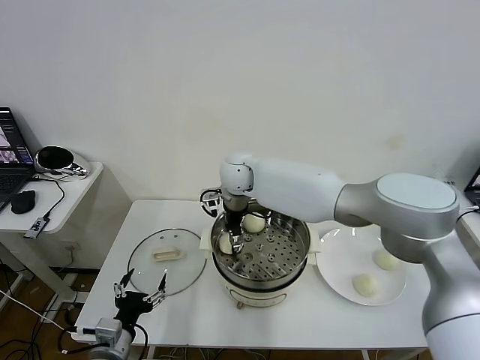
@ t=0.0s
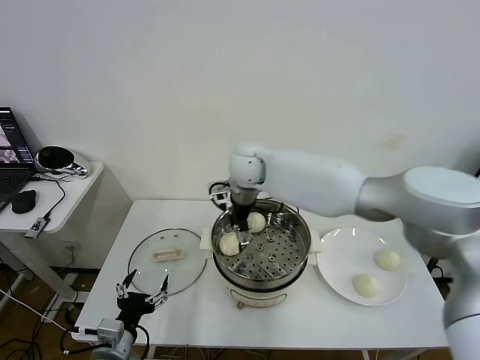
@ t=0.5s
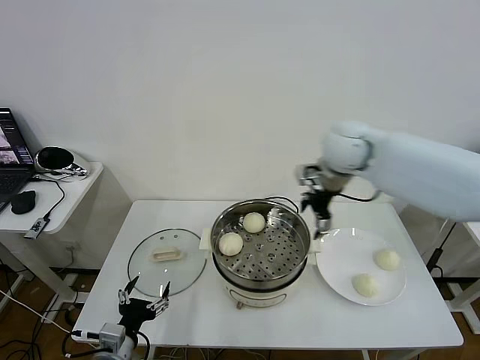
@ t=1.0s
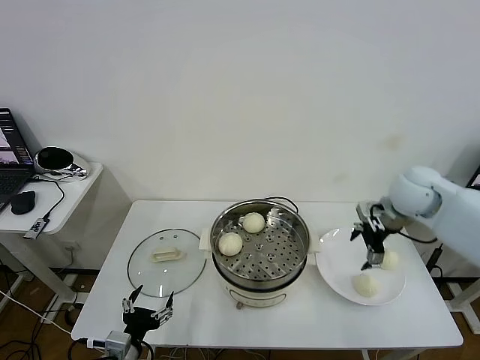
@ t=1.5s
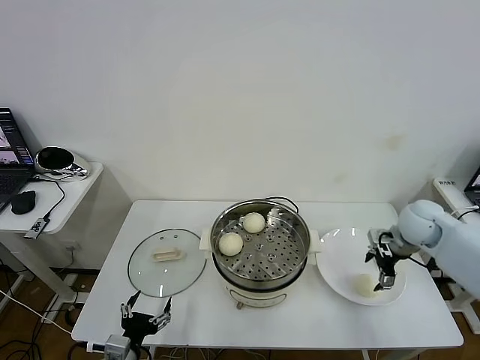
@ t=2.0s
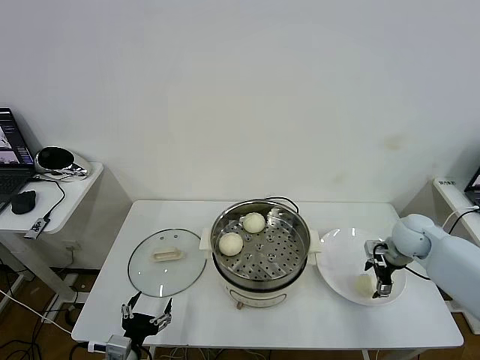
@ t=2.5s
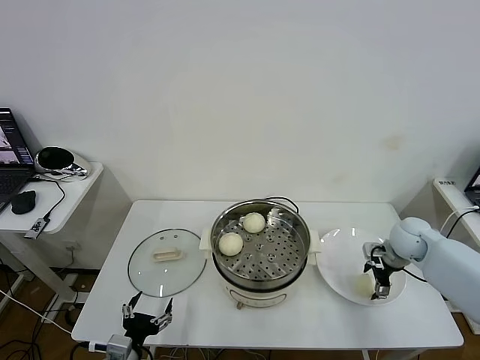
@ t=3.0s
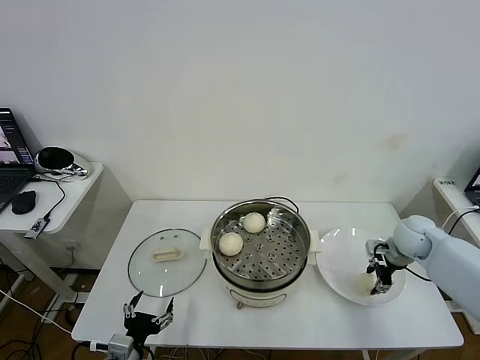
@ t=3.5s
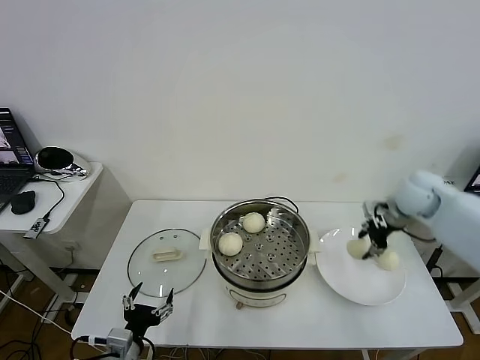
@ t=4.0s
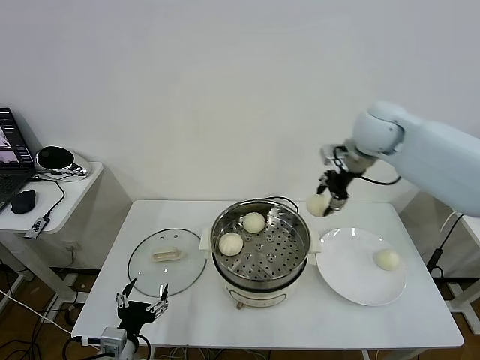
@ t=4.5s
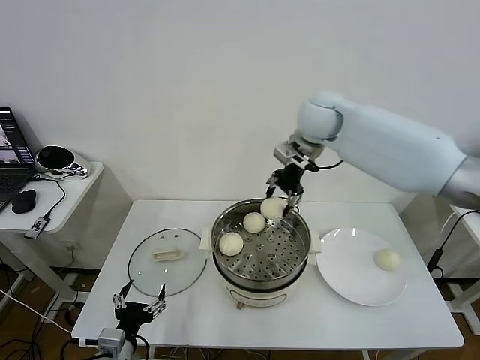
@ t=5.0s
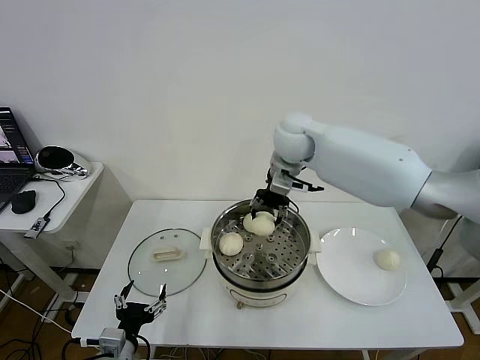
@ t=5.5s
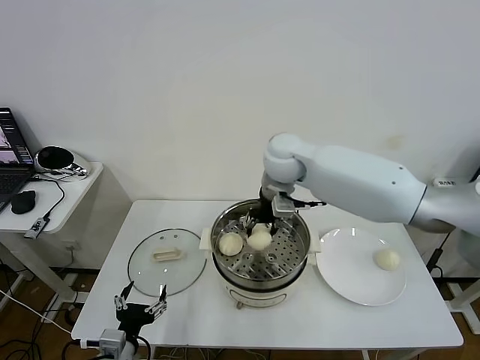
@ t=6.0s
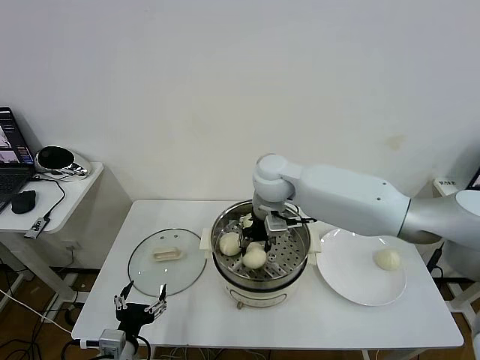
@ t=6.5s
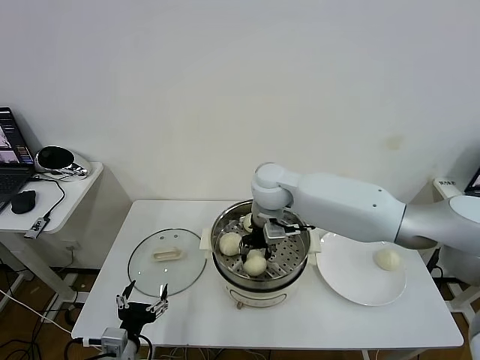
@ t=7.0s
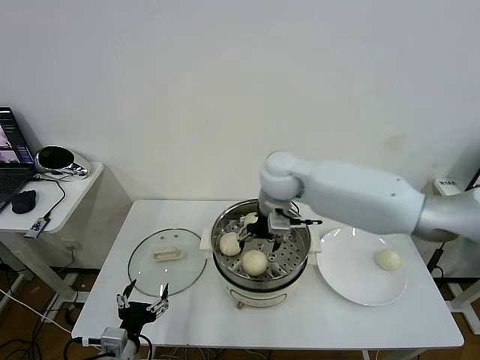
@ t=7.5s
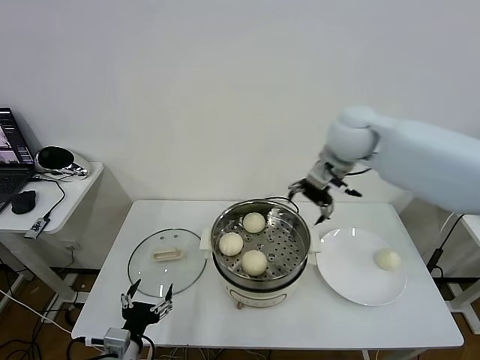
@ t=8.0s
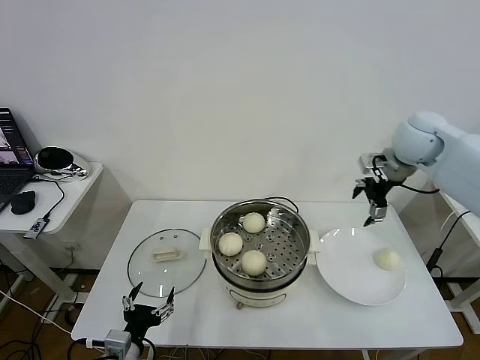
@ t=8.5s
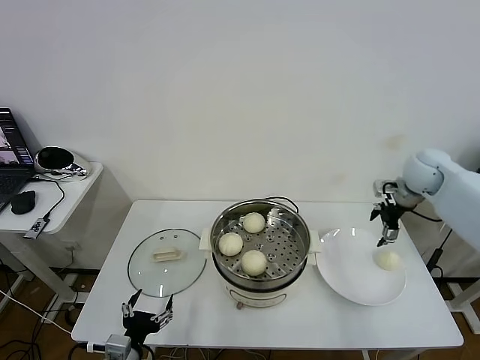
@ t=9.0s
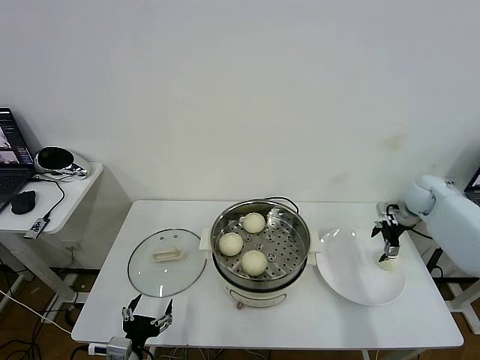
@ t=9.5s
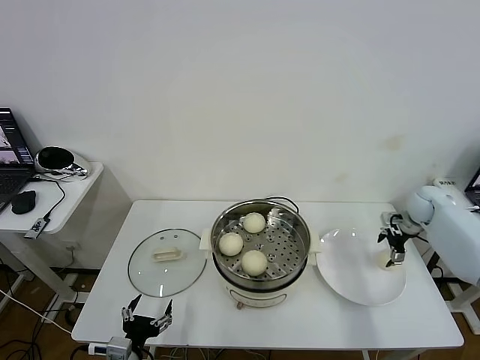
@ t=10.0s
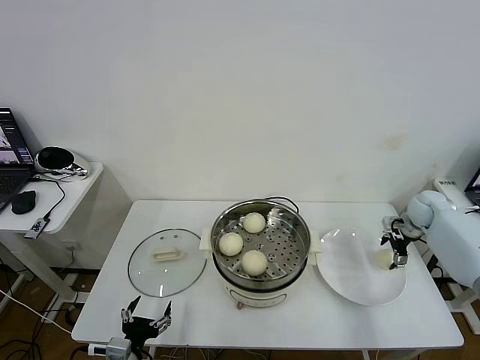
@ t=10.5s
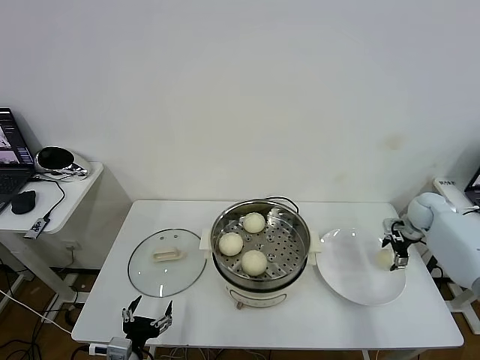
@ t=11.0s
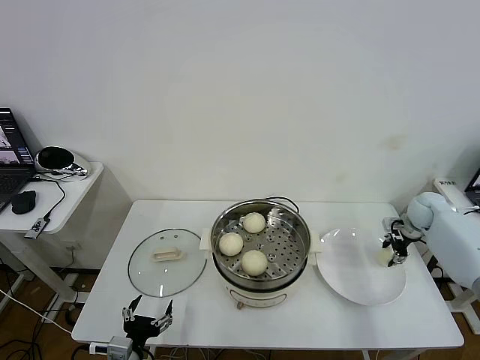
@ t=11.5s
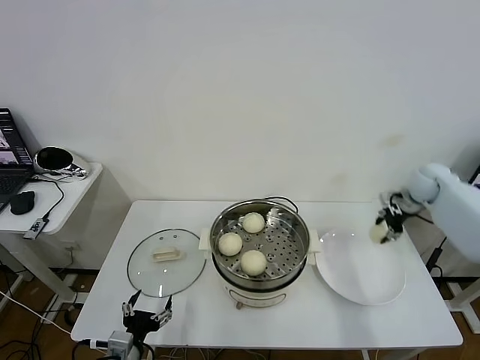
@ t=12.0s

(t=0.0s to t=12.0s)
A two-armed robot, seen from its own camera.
Task of the whole recording: take steamed baozi put them in steamer then cover it.
Step, t=0.5s - t=3.0s: Grasp the baozi in the plate with right gripper.
Step, t=4.0s - t=7.0s: Place the baozi on the steamer with right gripper.
Step, t=7.5s - t=11.5s: Grasp the baozi in the plate with right gripper.
t=0.0s - t=2.0s: The right gripper moves to the right, roughly 40 cm, and opens.
t=2.0s - t=4.0s: The right gripper travels upward by approximately 10 cm, and closes.
t=4.0s - t=6.0s: The right gripper moves to the left, about 30 cm.
t=6.0s - t=8.0s: The right gripper moves to the right and upward, some 15 cm, and opens up.
t=8.0s - t=10.0s: The right gripper shifts some 35 cm to the right and downward.
t=10.0s - t=12.0s: The right gripper travels upward by some 10 cm, and closes its fingers.

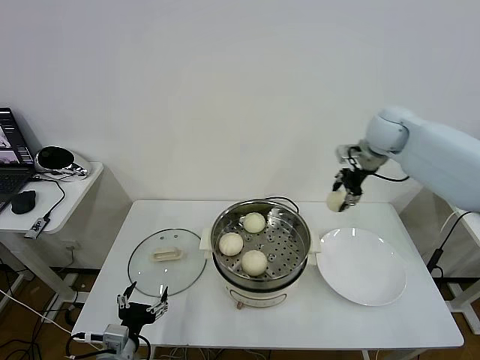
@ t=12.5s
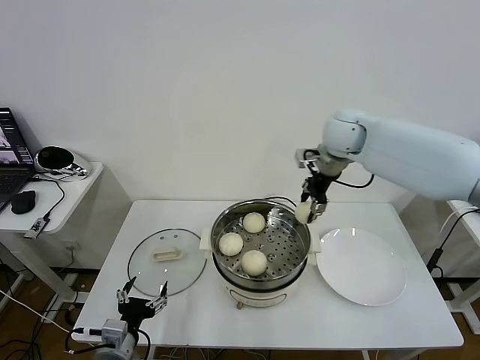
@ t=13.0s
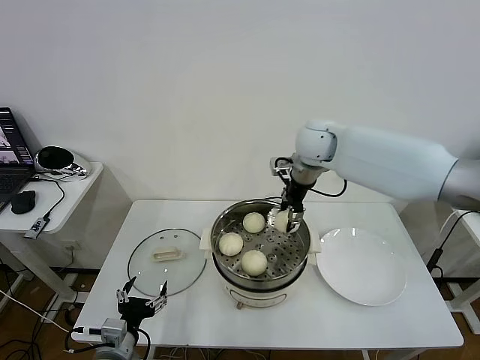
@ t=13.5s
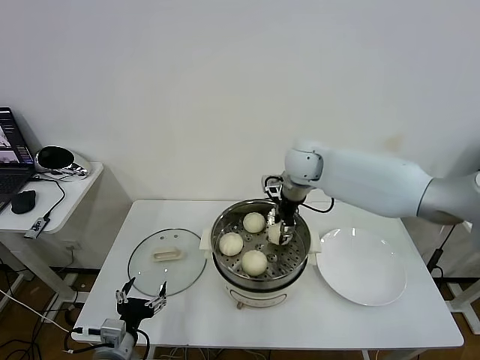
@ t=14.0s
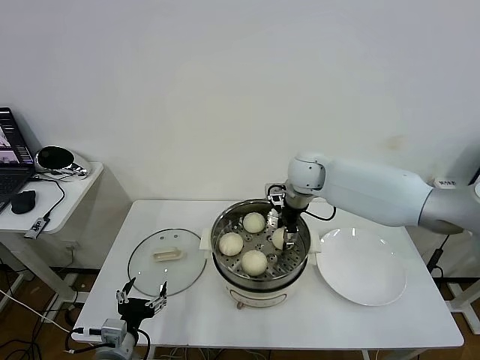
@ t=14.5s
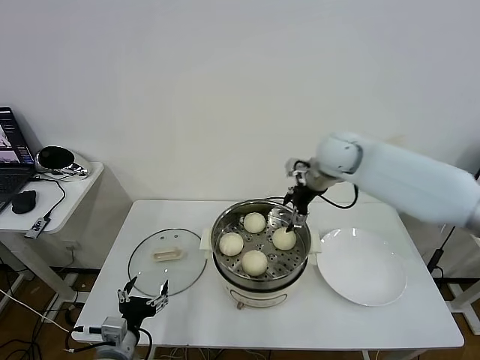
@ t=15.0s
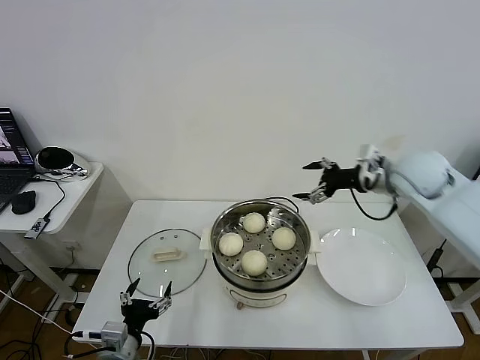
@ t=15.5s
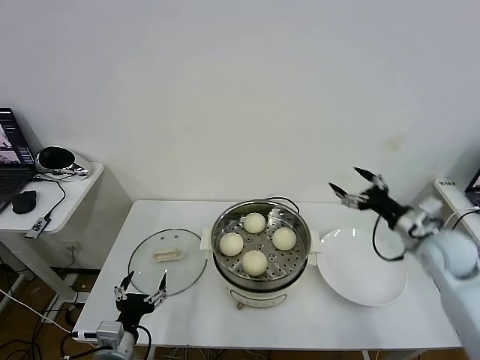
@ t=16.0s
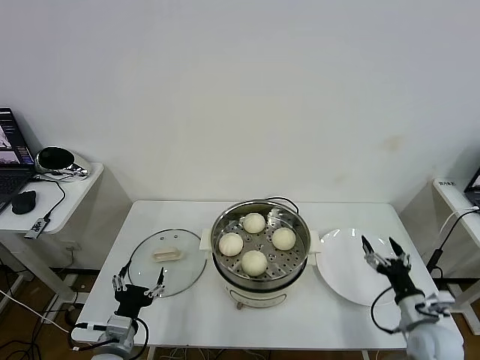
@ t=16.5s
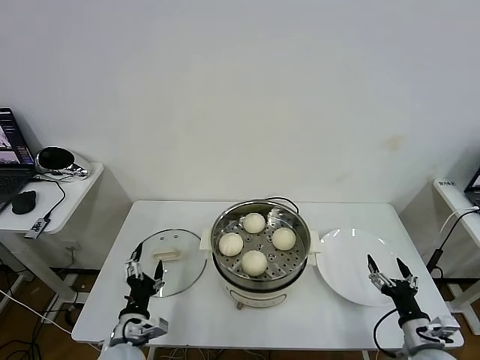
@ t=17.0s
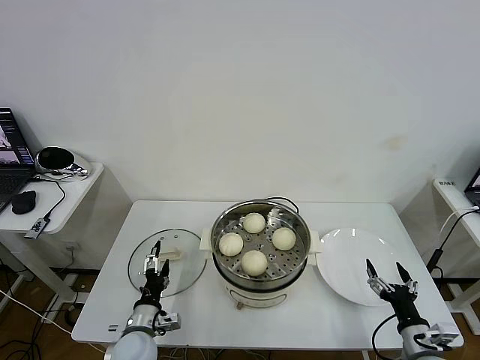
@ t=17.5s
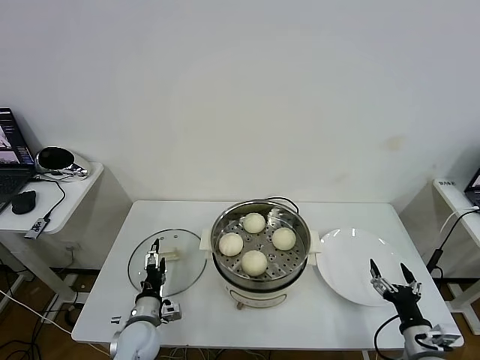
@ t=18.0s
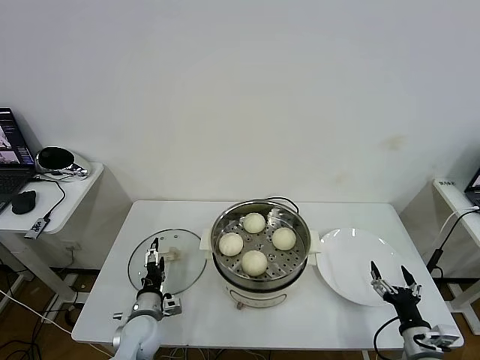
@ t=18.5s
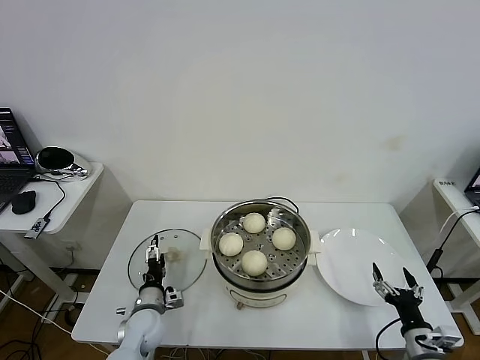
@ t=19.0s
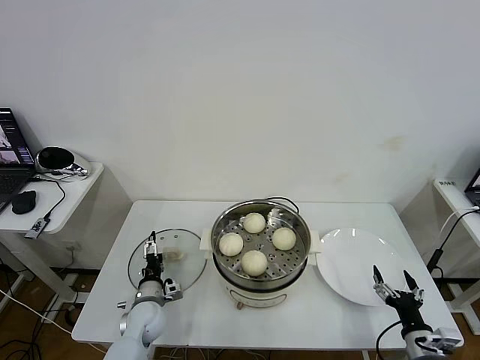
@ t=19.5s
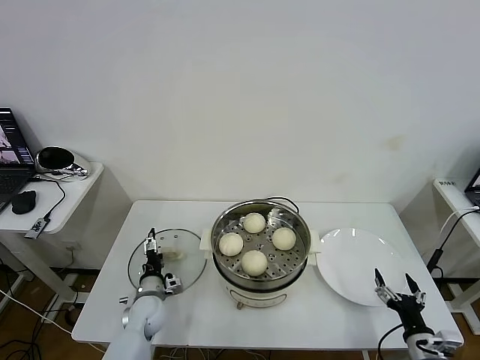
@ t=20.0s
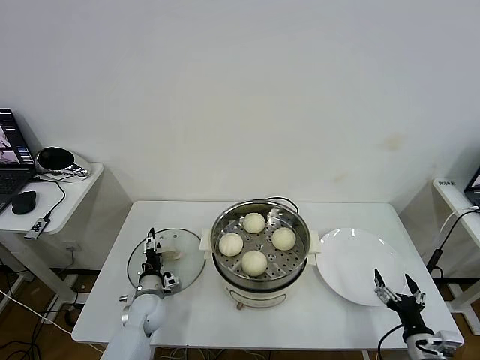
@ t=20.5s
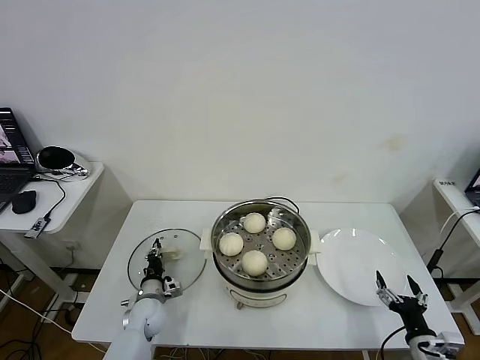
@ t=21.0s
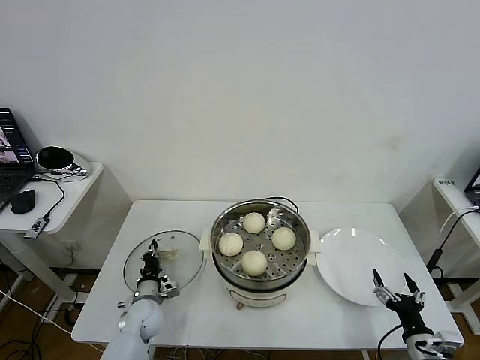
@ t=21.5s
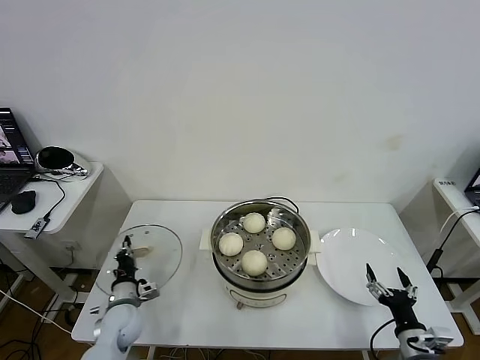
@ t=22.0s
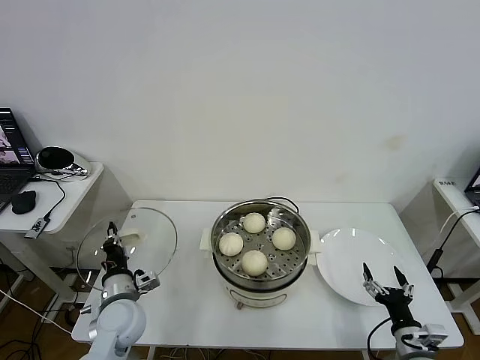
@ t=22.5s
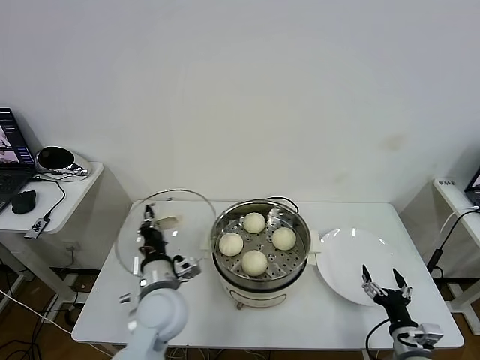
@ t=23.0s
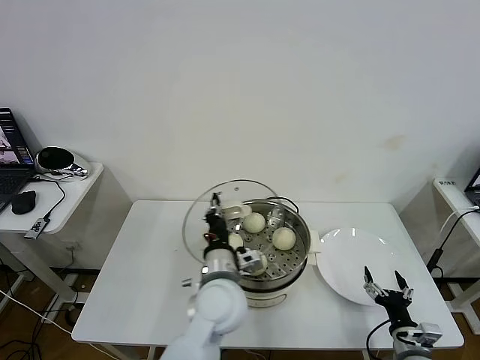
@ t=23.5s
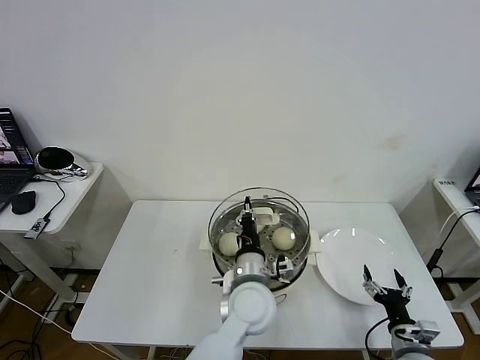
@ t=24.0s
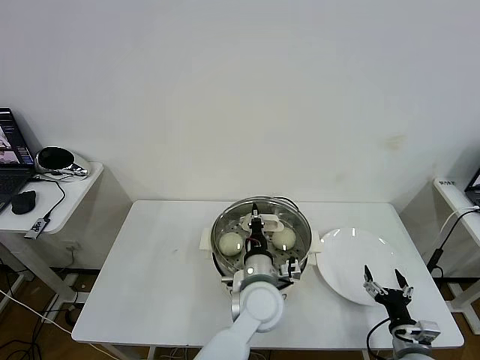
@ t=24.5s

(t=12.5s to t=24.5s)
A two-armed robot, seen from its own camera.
Task of the whole recording: take steamed baozi put them in steamer then cover it.
Step, t=12.5s - t=14.5s: Place the baozi on the steamer with right gripper.
Step, t=15.0s - t=21.0s: Grasp the pot lid with left gripper.
t=12.5s - t=14.5s: The right gripper goes approximately 20 cm to the left and downward.
t=14.5s - t=16.5s: The right gripper is displaced backward, to the right and downward by about 50 cm, and opens up.
t=16.5s - t=18.5s: The right gripper is displaced backward by approximately 5 cm, while the left gripper moves forward and downward, roughly 15 cm.
t=18.5s - t=20.5s: The left gripper shifts some 5 cm forward.
t=20.5s - t=22.5s: The left gripper travels upward and backward by approximately 15 cm, and closes.
t=22.5s - t=24.5s: The left gripper is displaced to the right by about 30 cm.

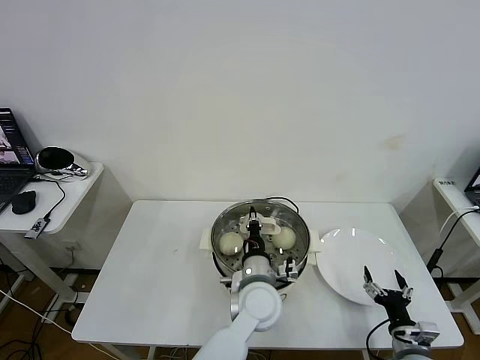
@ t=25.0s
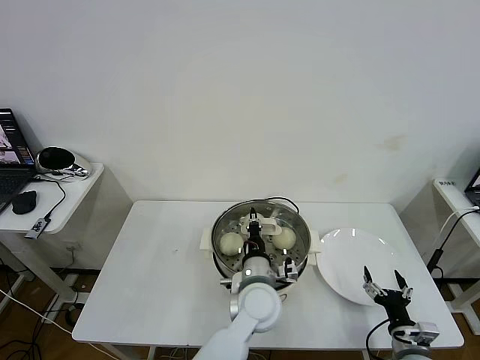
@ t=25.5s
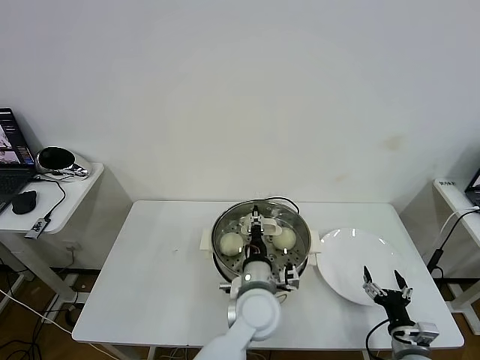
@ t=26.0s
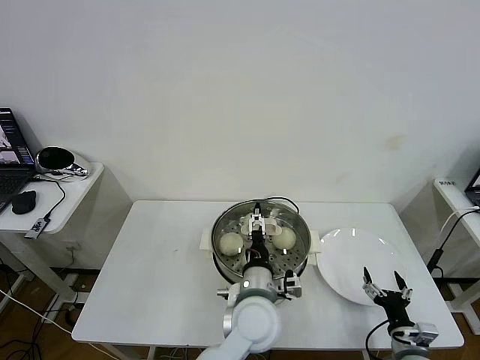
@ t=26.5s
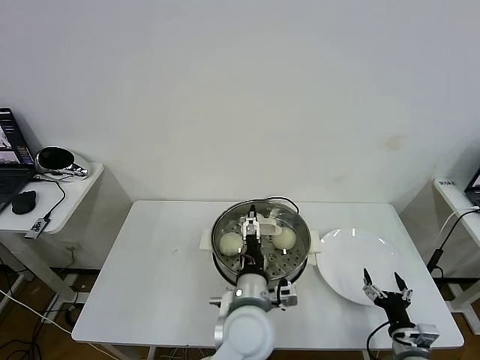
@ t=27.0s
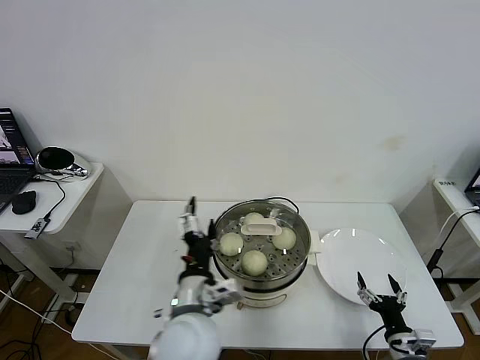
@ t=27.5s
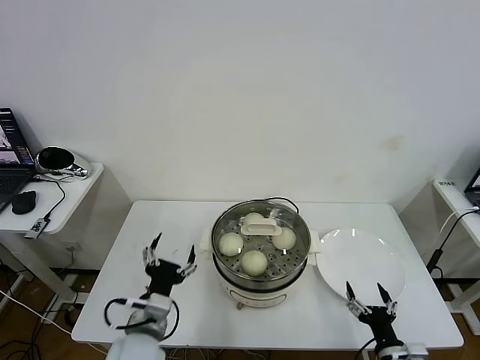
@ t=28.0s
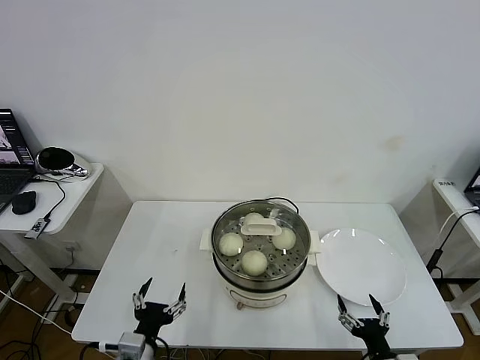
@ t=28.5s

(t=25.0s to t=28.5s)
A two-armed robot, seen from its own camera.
Task of the whole recording: take steamed baozi put them in steamer then cover it.
t=25.0s - t=27.0s: The left gripper heads backward, covering about 5 cm, and opens up.
t=27.0s - t=28.5s: The left gripper moves to the left and backward, roughly 25 cm; the right gripper heads backward and to the left, covering about 10 cm.
